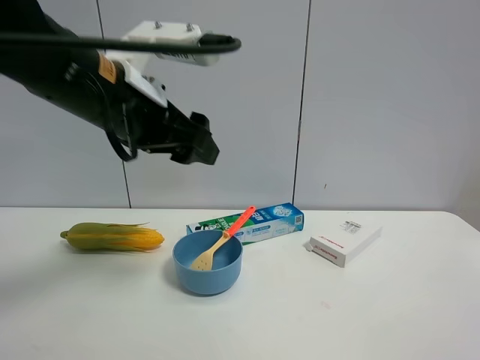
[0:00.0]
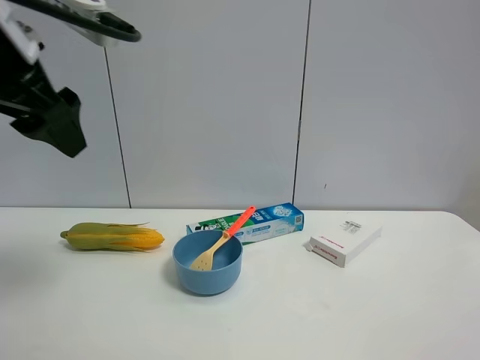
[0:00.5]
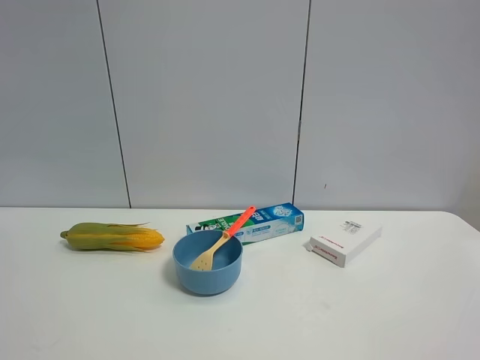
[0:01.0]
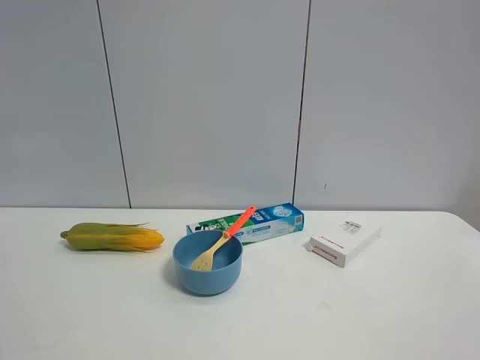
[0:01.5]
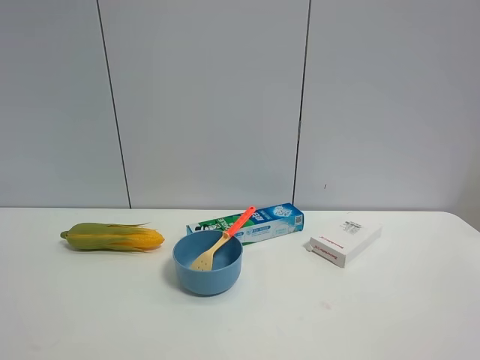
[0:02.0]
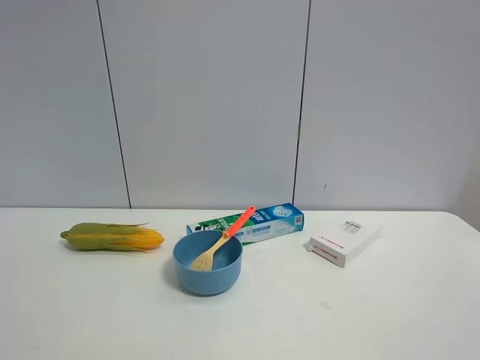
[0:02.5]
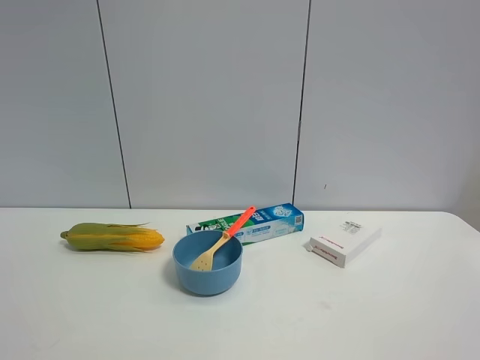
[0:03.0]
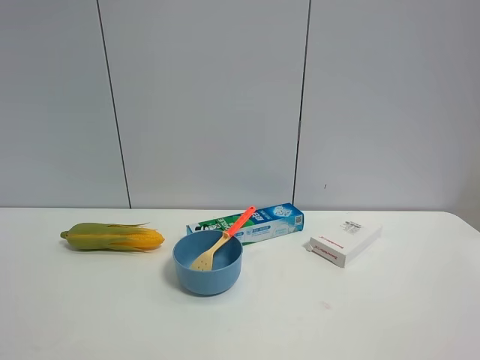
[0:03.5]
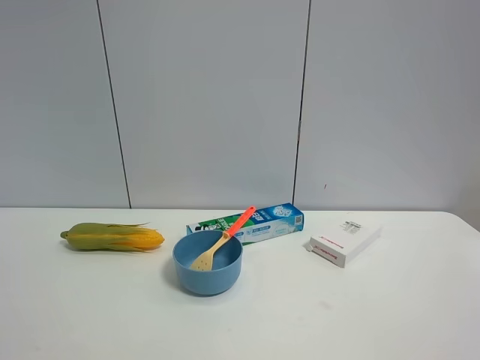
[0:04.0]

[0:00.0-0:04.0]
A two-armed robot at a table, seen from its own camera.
Task of the whole recording: the gripper move the object.
0:00.0 to 0:02.0: The left gripper shifts roughly 30 cm backward and to the left.

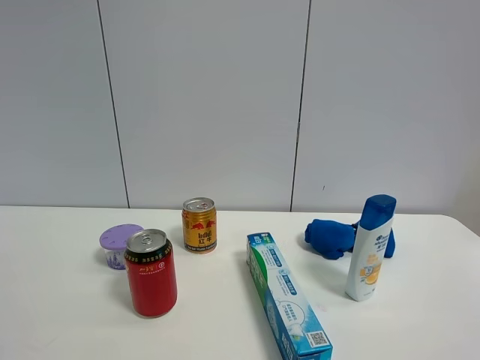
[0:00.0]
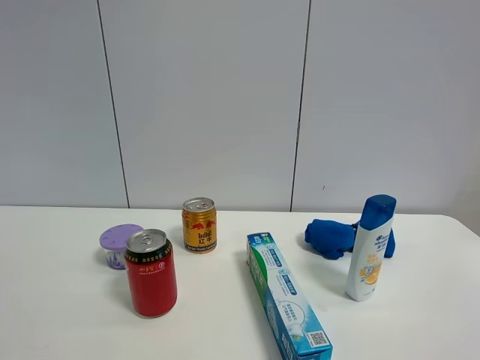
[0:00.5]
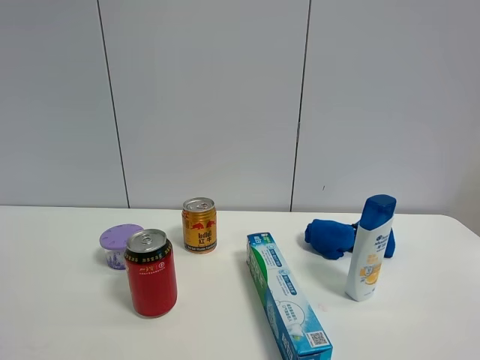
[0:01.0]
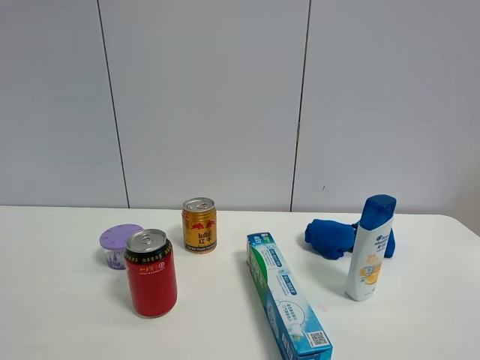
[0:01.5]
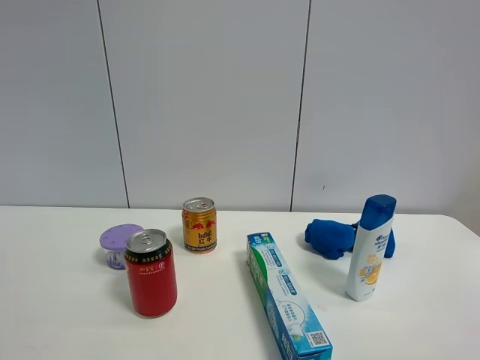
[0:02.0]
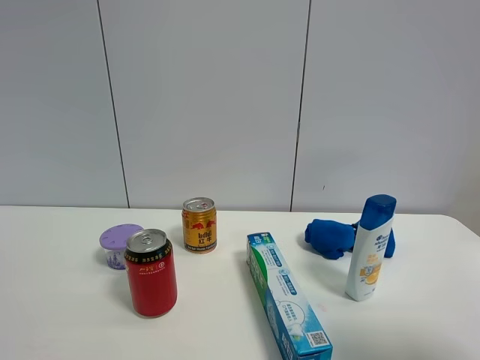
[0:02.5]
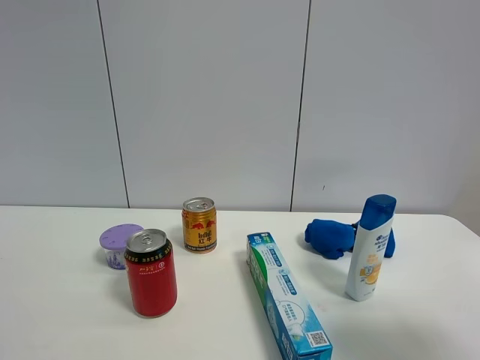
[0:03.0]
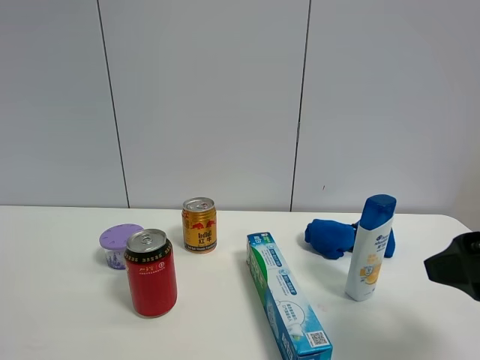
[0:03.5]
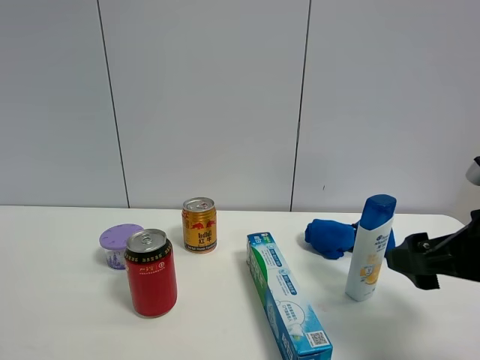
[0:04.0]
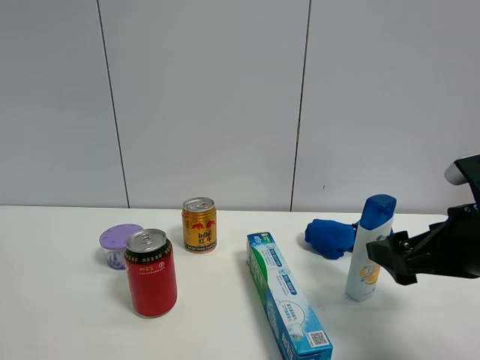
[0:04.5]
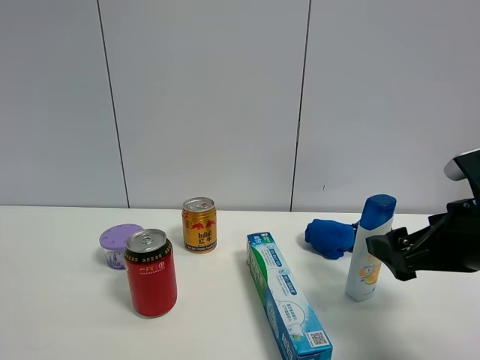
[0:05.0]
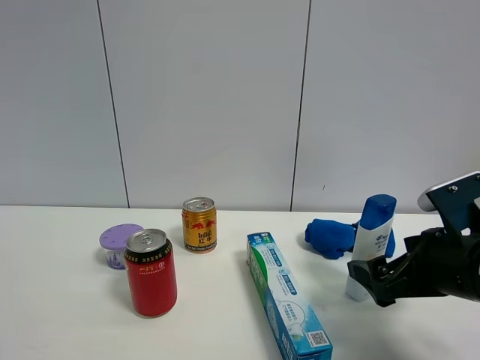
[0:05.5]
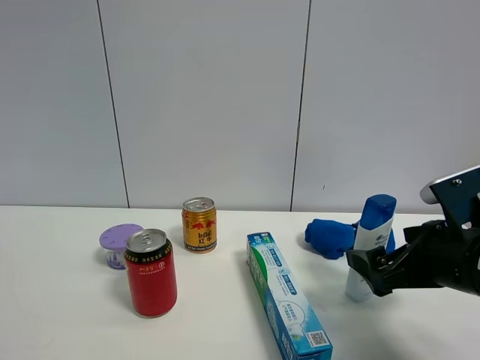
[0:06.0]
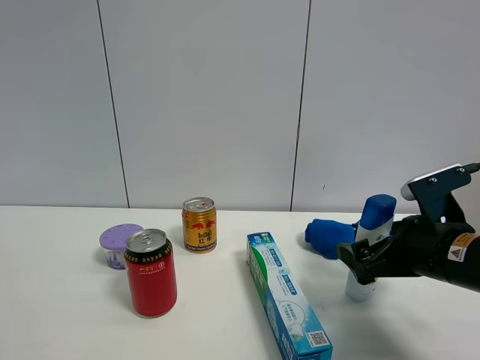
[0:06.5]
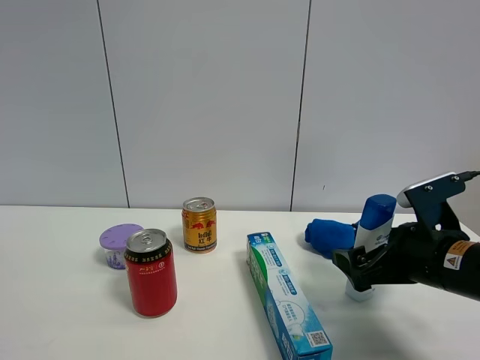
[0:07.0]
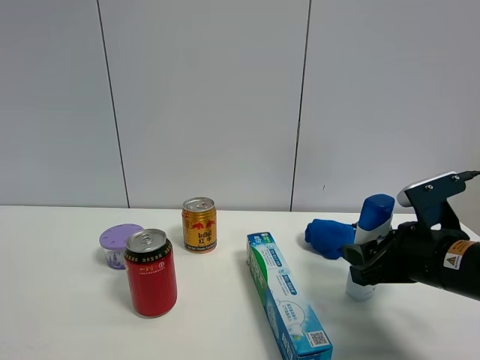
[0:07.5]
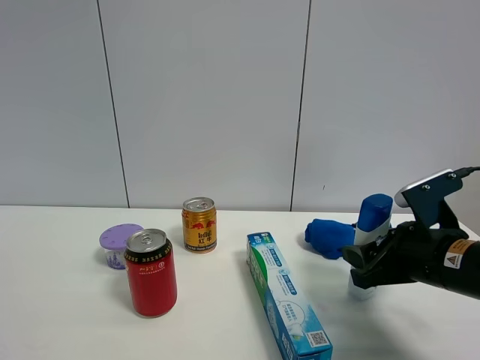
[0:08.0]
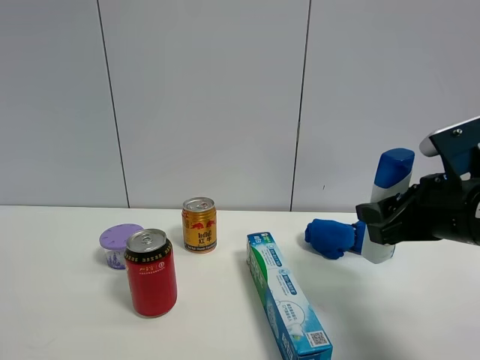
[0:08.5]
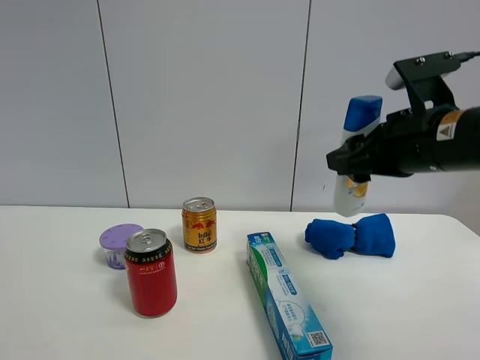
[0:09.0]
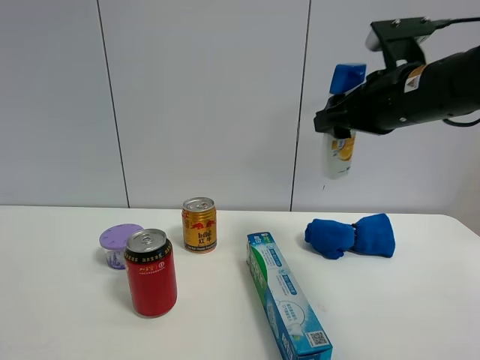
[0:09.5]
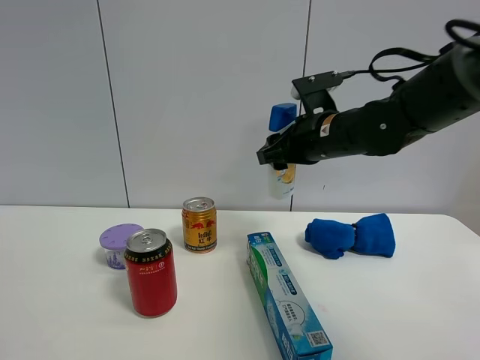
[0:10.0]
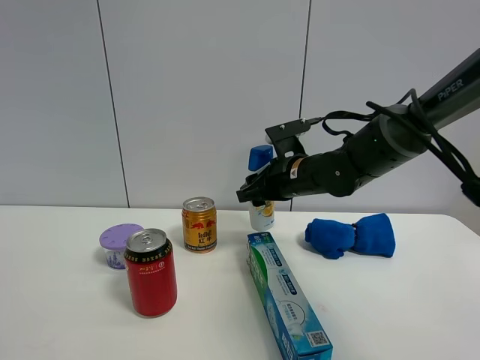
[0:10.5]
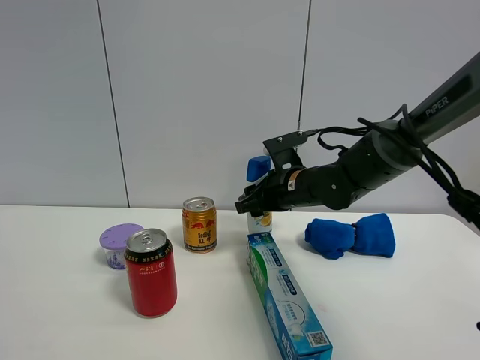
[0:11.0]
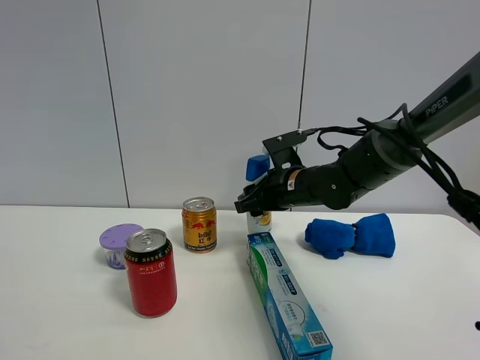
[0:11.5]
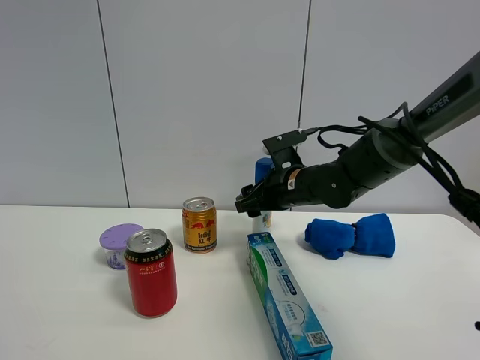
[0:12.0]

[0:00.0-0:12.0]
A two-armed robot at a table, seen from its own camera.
Task of the whole recording: the gripper move the object.
Step, 0:00.0 to 0:07.5: Grasp the shampoo with the right gripper.
0:02.0 to 0:04.0: The right gripper moves forward and downward, some 25 cm.
0:04.0 to 0:06.0: The right gripper changes place by some 5 cm.
0:06.0 to 0:08.0: The right gripper closes up.
0:08.0 to 0:10.0: The right gripper heads forward, to the left and upward, covering some 20 cm.
0:10.0 to 0:12.0: The right gripper goes some 10 cm downward.

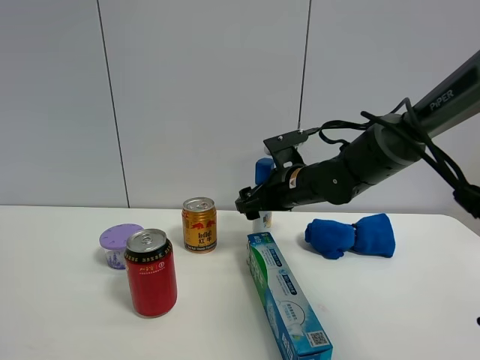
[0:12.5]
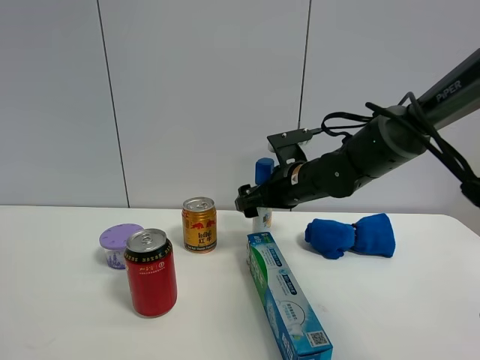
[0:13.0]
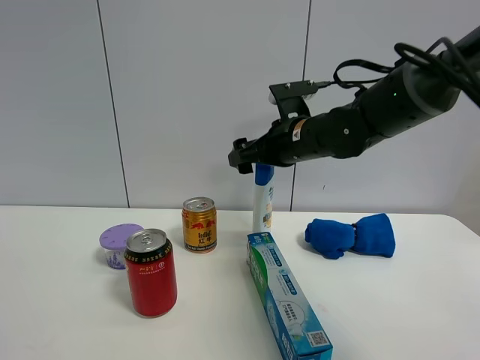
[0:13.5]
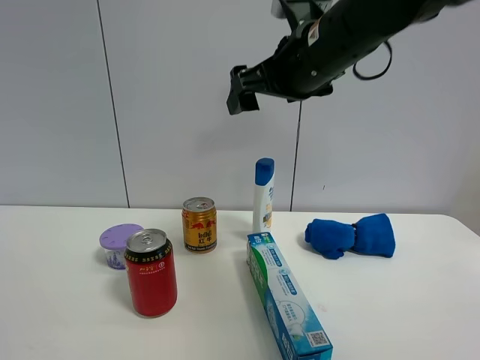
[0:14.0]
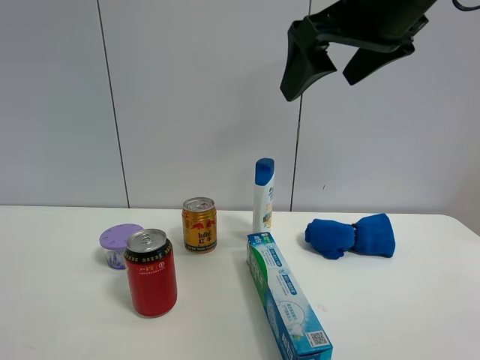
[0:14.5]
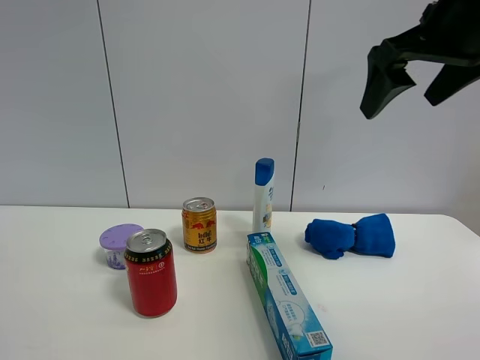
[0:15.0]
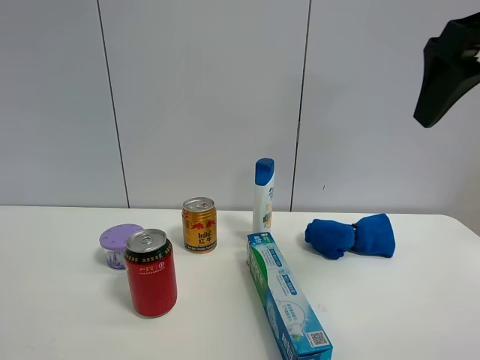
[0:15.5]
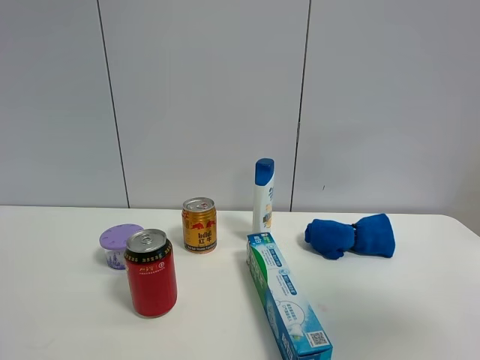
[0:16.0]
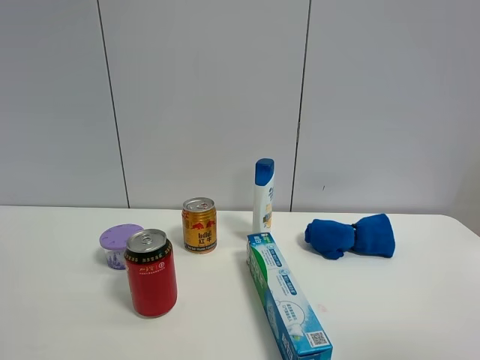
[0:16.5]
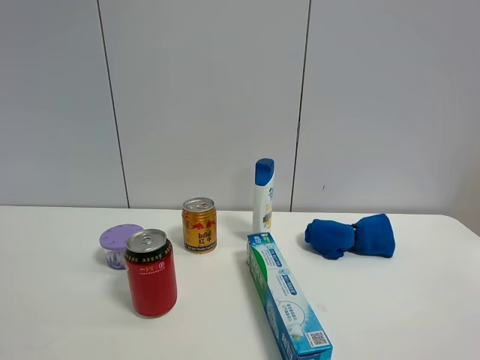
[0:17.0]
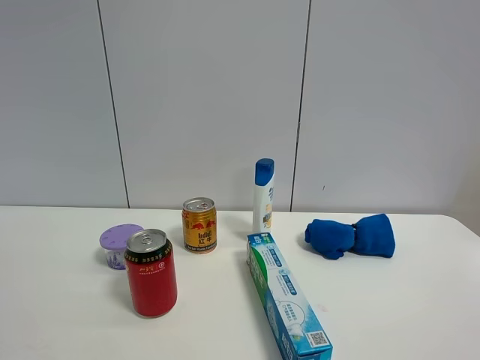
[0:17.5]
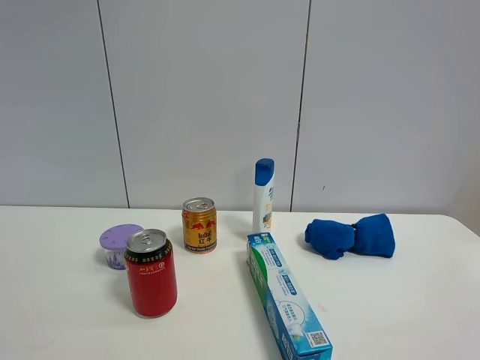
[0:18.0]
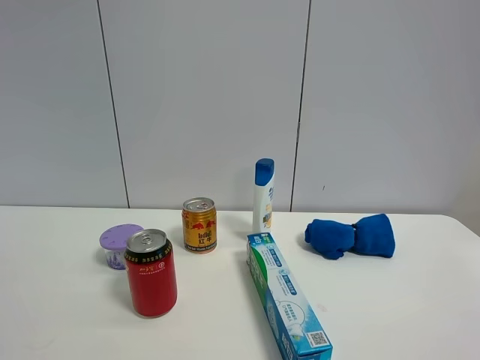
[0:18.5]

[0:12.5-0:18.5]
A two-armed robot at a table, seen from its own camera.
Task of the whole recording: the gripper move the object.
0:12.5 to 0:14.5: The right gripper shifts approximately 30 cm upward and backward, and opens its fingers.
0:14.5 to 0:16.5: The right gripper goes about 30 cm backward and to the right.

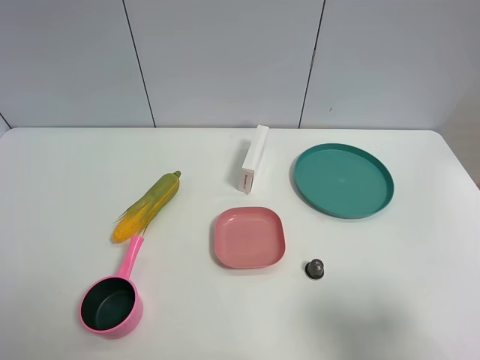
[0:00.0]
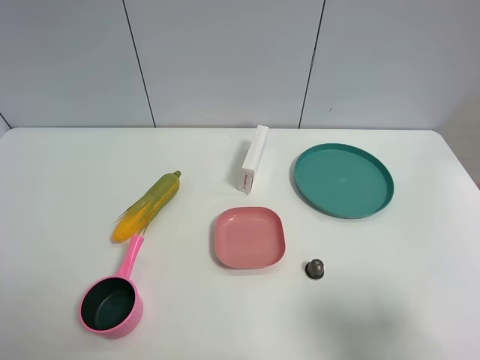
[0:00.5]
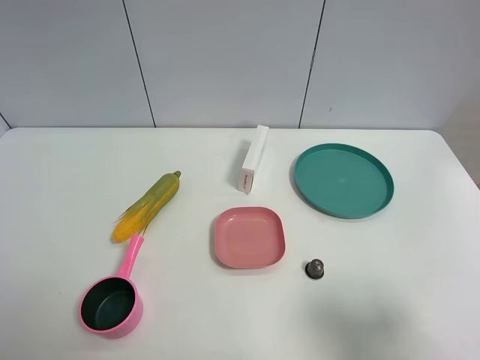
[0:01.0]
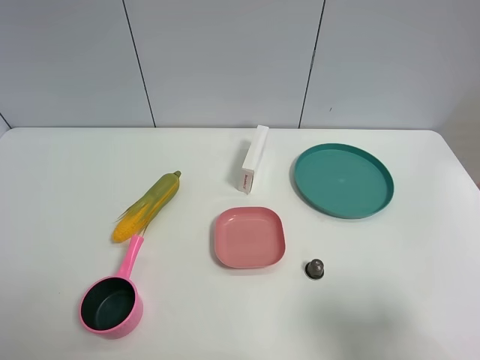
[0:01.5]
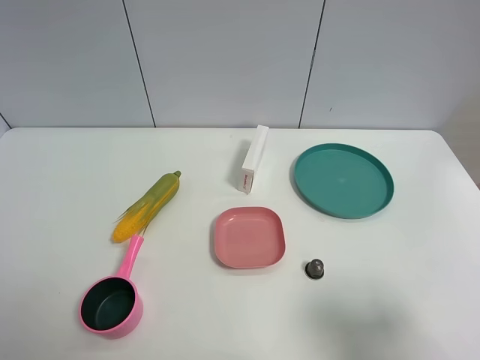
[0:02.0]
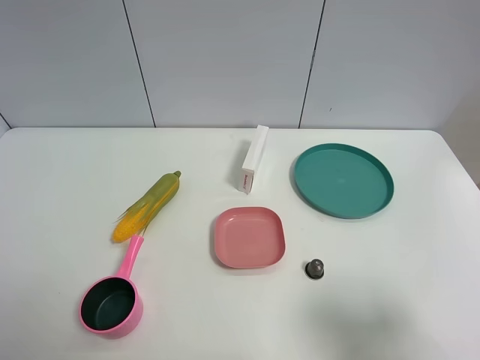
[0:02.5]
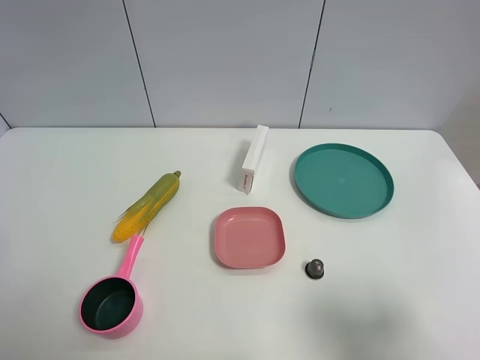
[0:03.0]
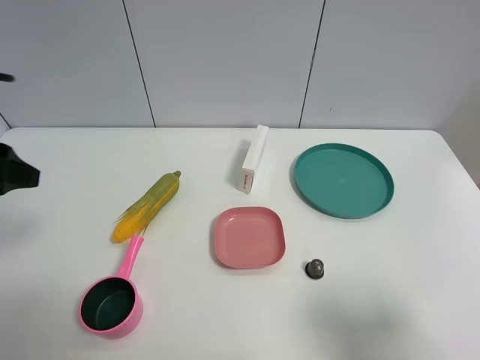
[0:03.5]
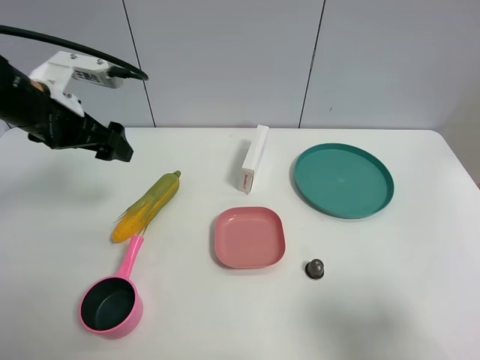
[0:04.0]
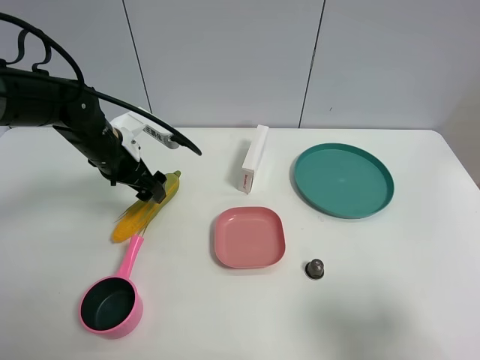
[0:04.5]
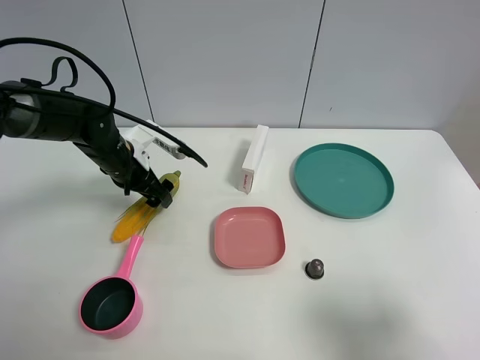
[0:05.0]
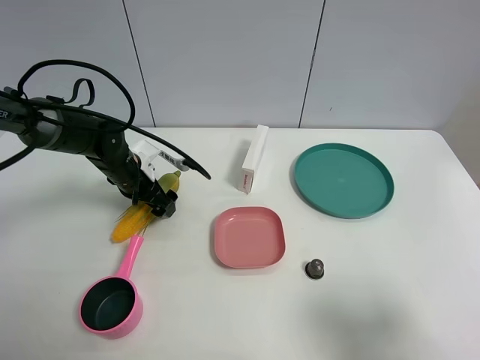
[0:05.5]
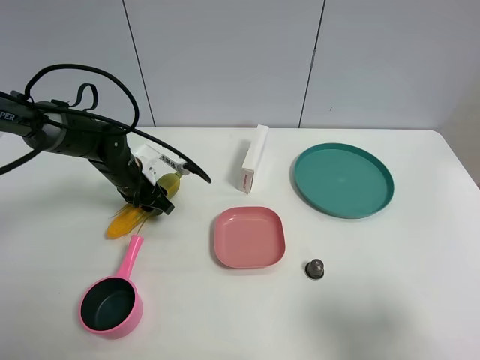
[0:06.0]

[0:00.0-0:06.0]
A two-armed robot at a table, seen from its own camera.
Task of the whole recording: the gripper move the object.
Step, 0:00.0 to 0:06.0: Grasp the corn with the left gripper.
0:00.0 to 0:02.0: Both grippers stay about where they are.
0:02.0 to 0:04.0: The left gripper goes approximately 30 cm forward.
0:04.0 to 0:06.0: The left gripper goes about 15 cm downward, and closes.
